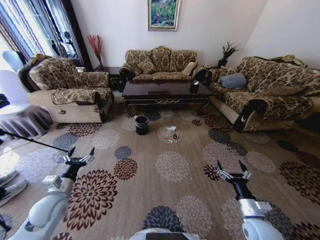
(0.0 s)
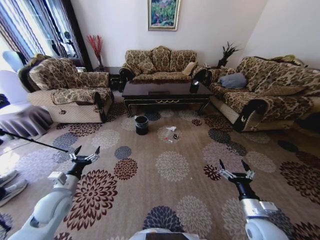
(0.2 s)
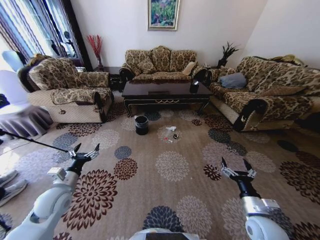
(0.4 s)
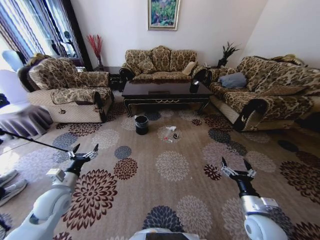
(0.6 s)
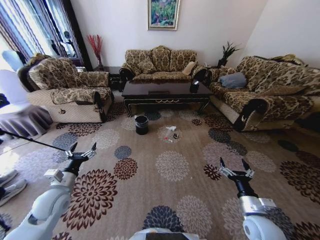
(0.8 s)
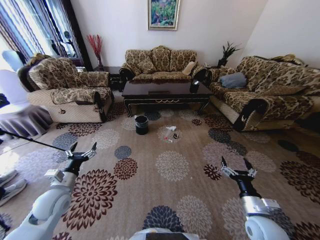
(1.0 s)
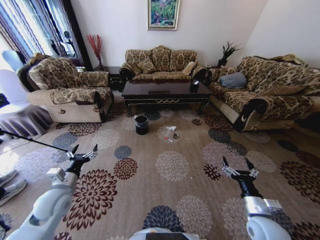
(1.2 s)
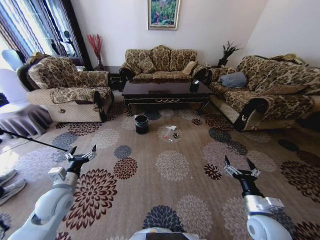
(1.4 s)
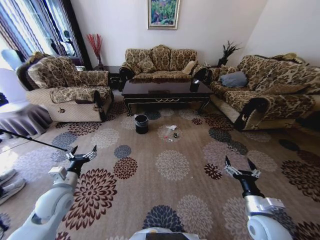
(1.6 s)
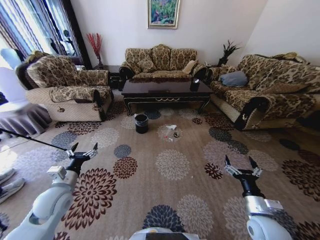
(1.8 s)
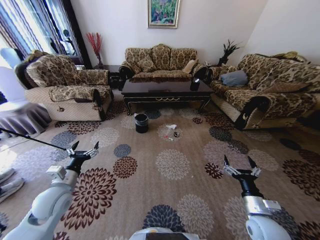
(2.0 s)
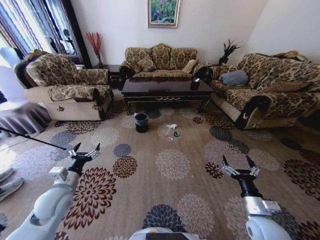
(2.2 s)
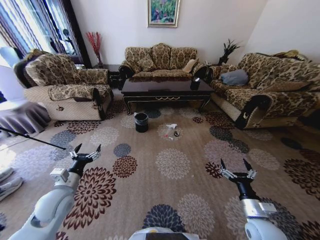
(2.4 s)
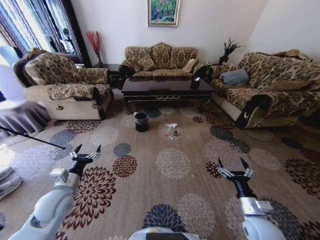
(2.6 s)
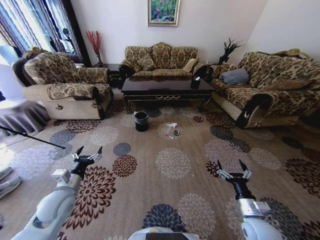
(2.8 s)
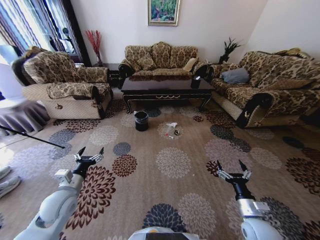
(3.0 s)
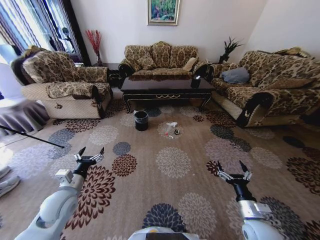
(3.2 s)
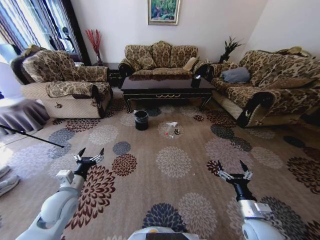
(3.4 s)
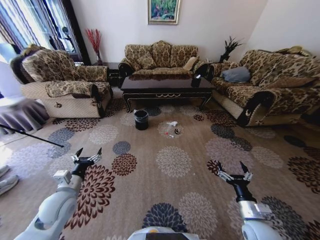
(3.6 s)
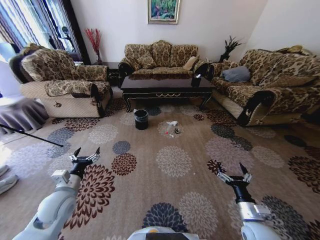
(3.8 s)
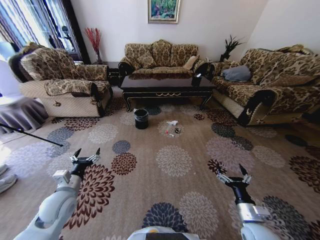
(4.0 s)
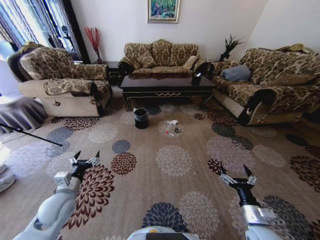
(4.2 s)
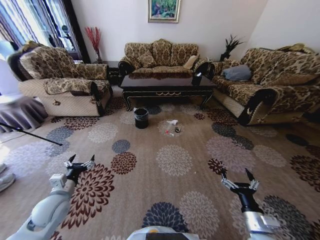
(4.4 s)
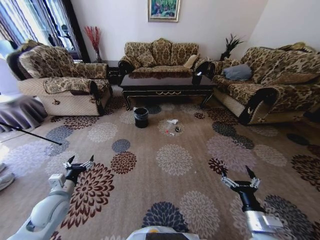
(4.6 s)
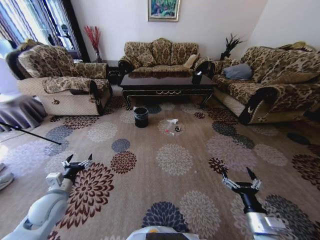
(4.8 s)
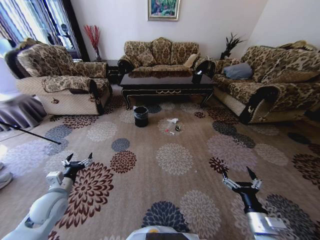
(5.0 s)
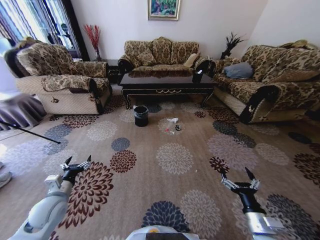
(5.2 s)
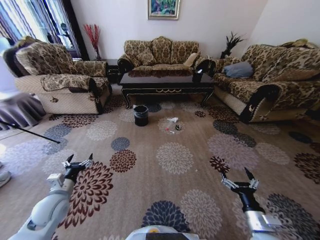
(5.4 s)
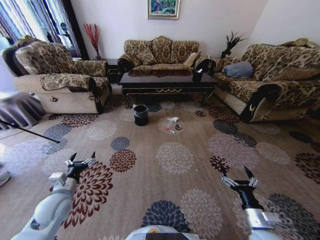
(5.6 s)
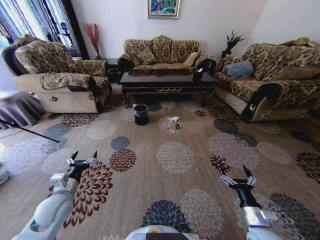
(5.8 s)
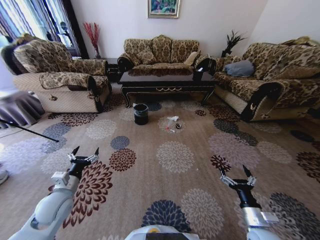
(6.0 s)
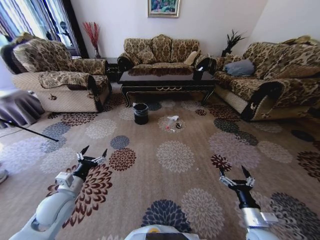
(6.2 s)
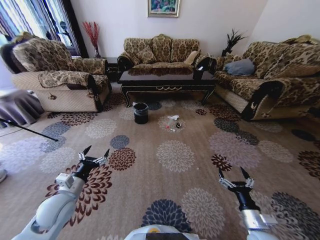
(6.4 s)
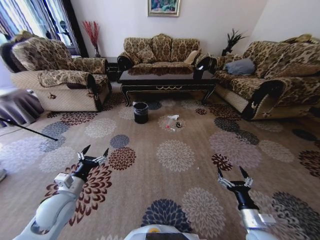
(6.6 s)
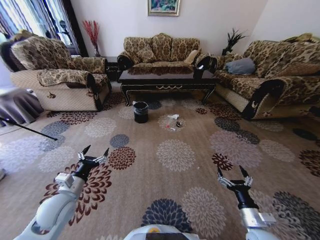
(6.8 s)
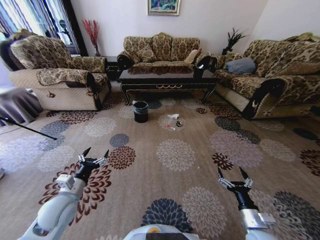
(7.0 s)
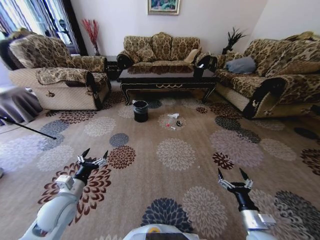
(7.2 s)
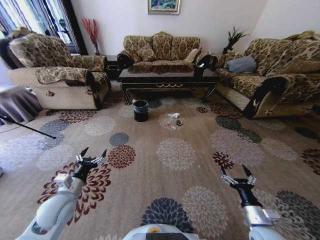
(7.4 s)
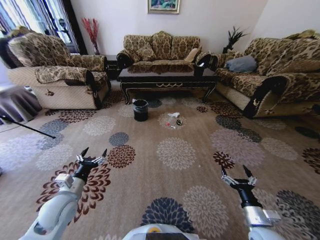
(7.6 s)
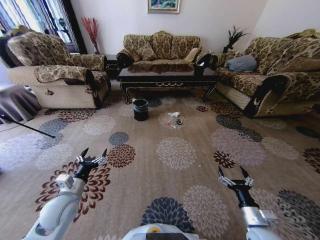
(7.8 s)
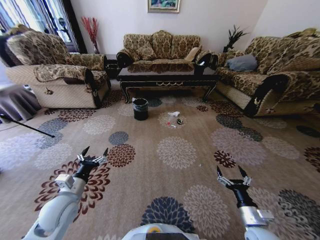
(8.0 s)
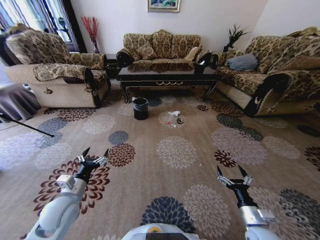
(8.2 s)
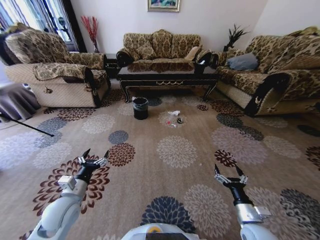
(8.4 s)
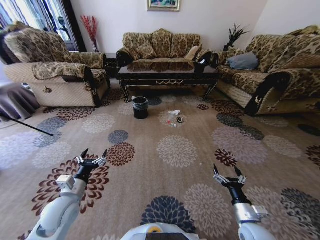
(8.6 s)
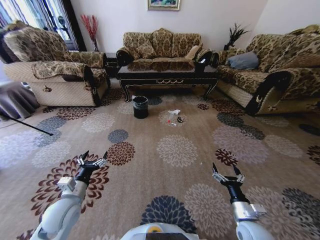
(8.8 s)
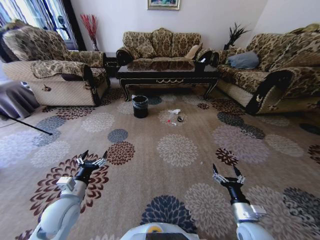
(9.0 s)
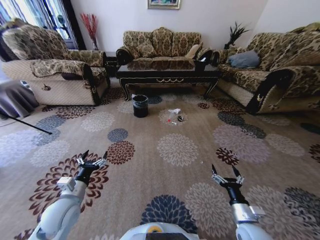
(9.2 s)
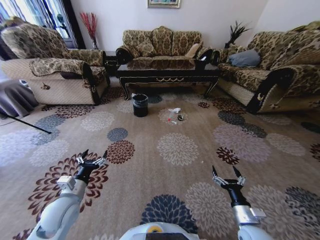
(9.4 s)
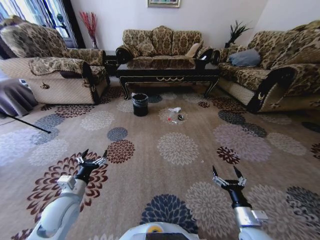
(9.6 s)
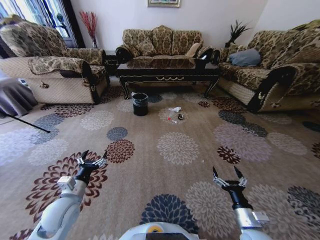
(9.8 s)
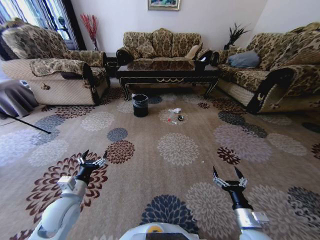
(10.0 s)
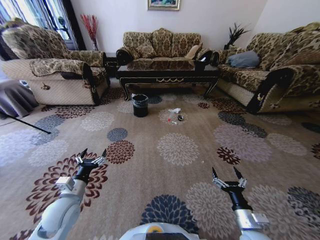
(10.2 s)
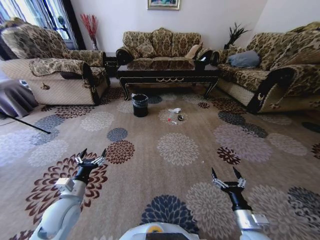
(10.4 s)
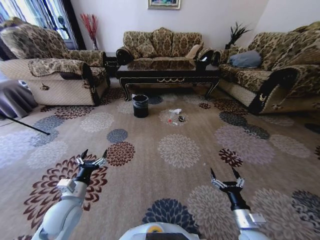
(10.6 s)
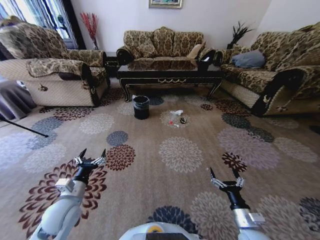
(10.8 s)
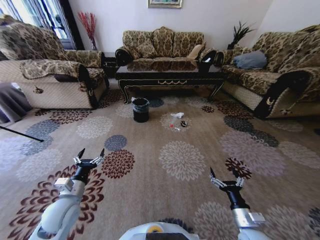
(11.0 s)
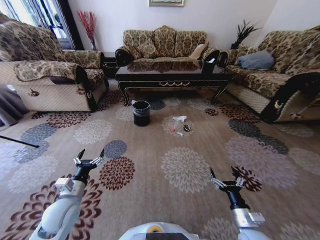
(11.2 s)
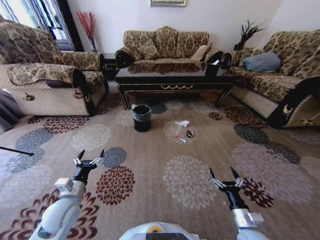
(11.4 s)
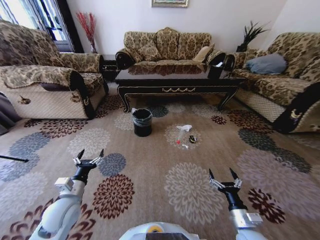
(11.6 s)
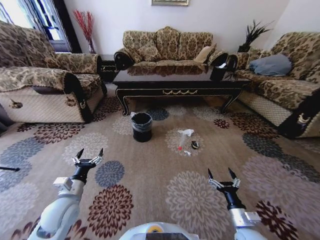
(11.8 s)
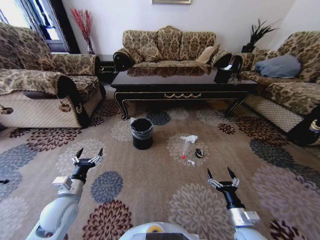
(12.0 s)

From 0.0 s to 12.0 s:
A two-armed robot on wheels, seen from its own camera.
Task of the whole recording: Move to the front of the table and pick up the trash from the floor, then place it into the trash bin.
From 9.0 s to 10.4 s: There are only small adjustments of the grippers.

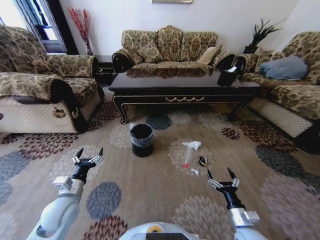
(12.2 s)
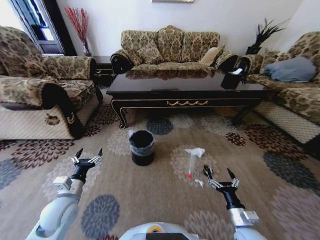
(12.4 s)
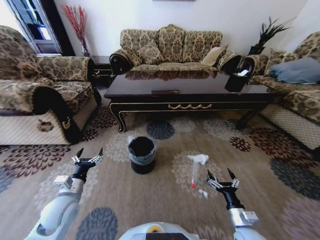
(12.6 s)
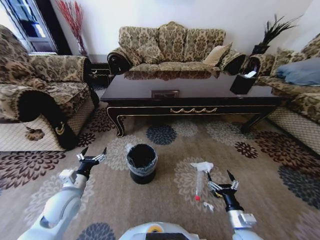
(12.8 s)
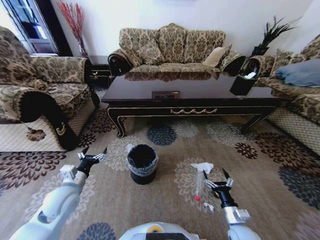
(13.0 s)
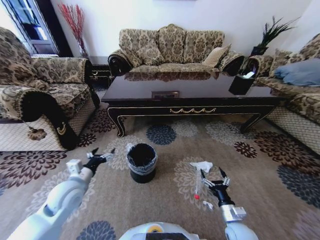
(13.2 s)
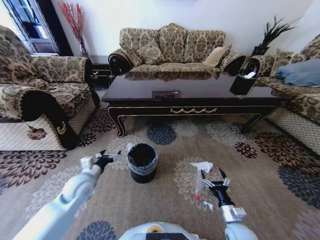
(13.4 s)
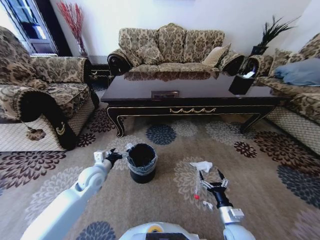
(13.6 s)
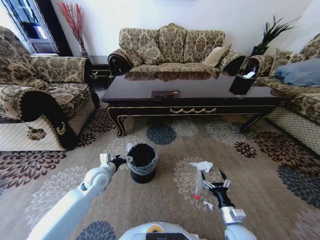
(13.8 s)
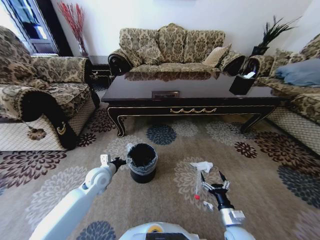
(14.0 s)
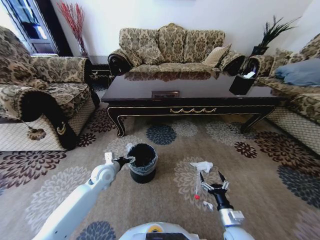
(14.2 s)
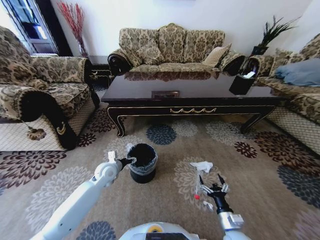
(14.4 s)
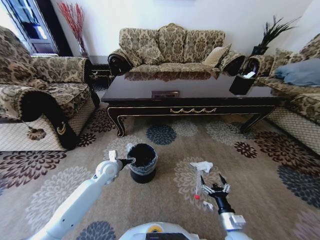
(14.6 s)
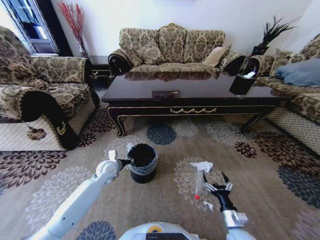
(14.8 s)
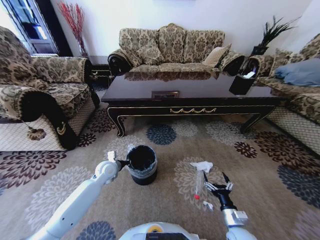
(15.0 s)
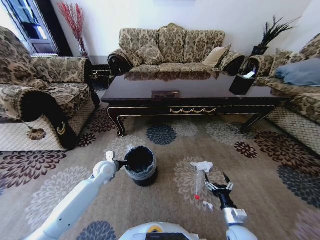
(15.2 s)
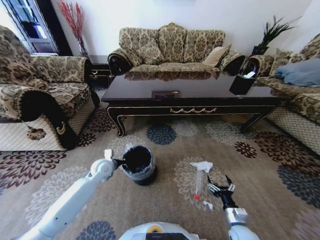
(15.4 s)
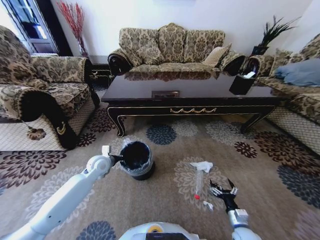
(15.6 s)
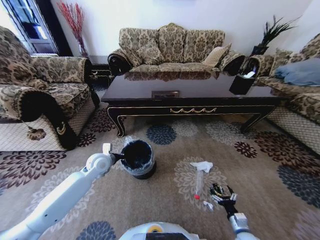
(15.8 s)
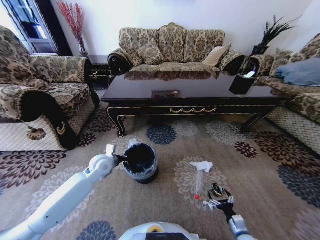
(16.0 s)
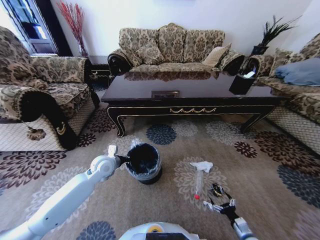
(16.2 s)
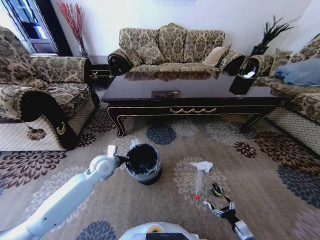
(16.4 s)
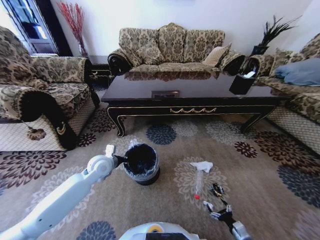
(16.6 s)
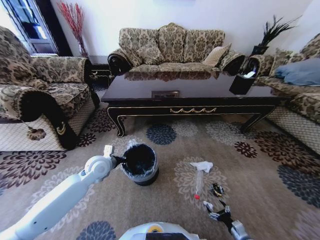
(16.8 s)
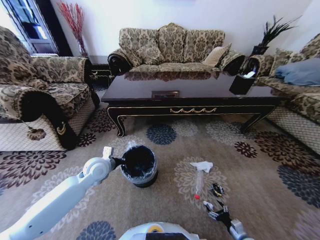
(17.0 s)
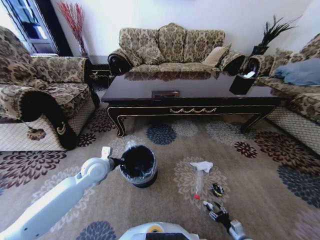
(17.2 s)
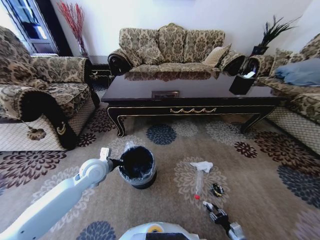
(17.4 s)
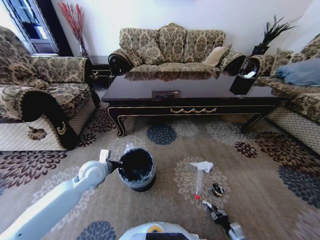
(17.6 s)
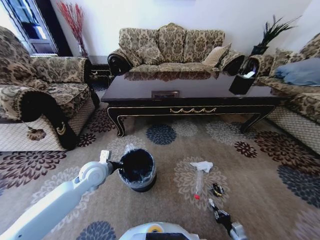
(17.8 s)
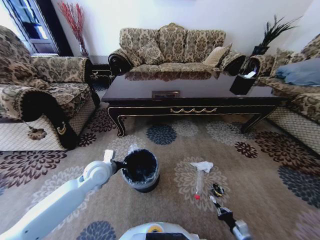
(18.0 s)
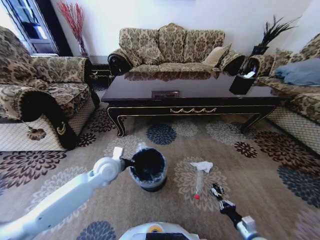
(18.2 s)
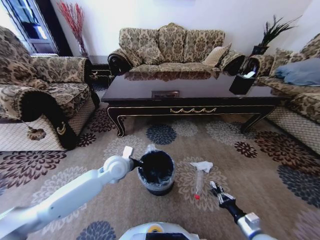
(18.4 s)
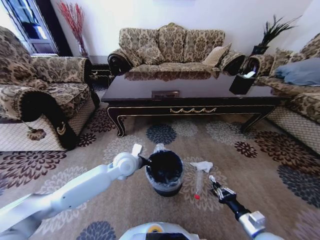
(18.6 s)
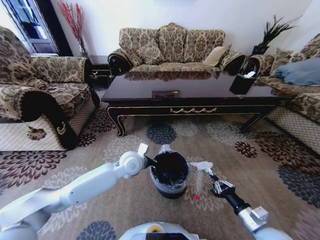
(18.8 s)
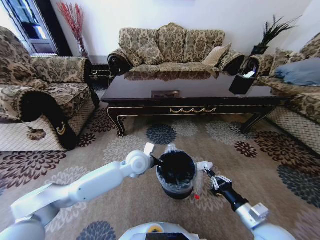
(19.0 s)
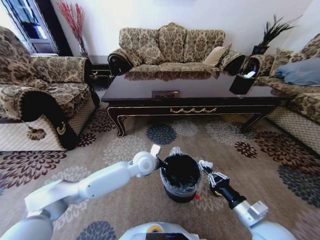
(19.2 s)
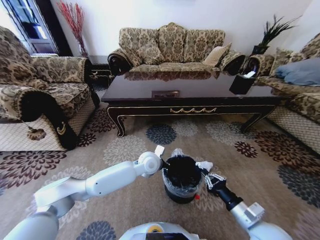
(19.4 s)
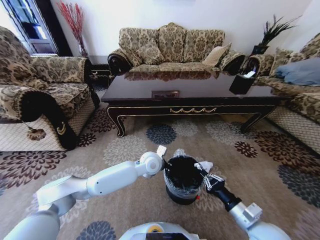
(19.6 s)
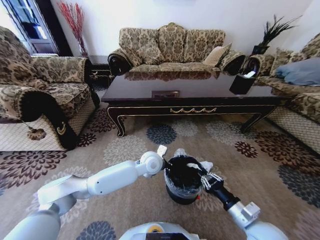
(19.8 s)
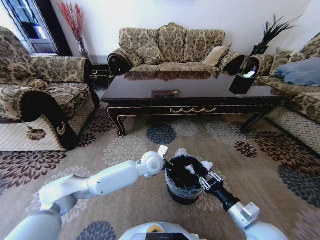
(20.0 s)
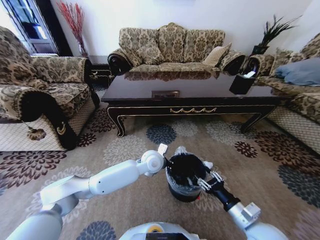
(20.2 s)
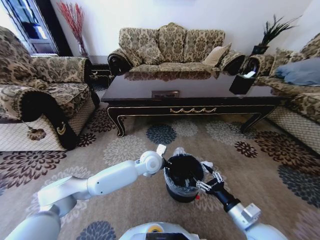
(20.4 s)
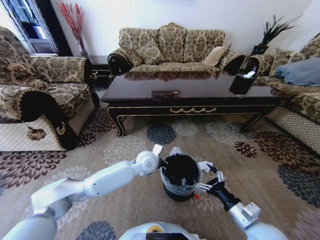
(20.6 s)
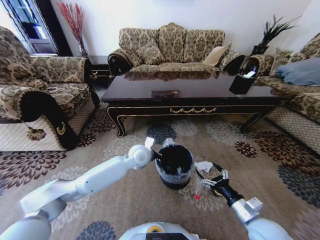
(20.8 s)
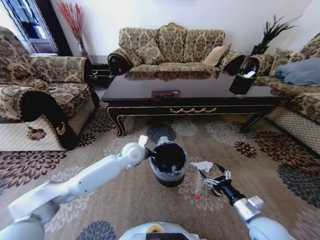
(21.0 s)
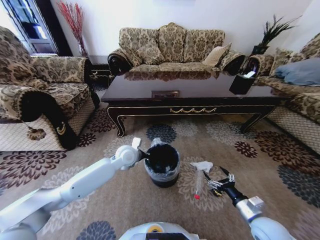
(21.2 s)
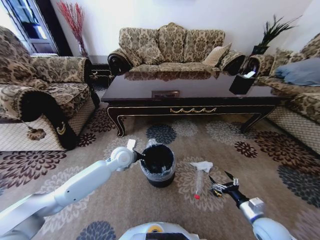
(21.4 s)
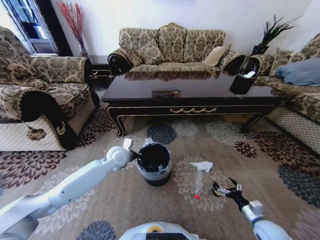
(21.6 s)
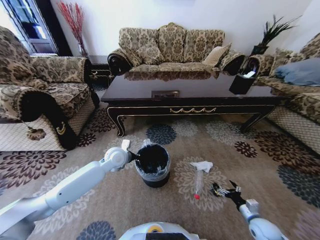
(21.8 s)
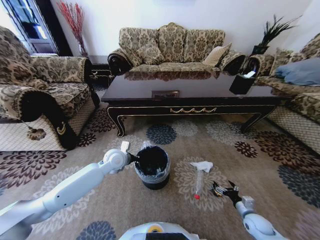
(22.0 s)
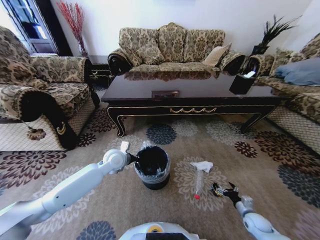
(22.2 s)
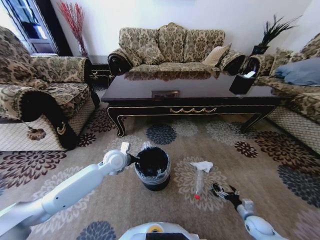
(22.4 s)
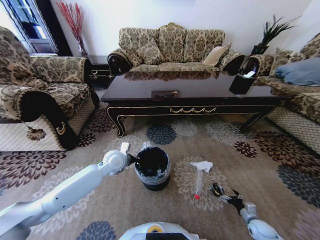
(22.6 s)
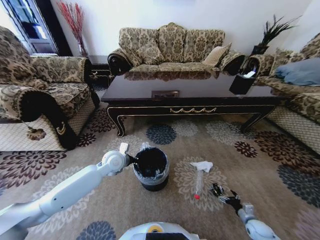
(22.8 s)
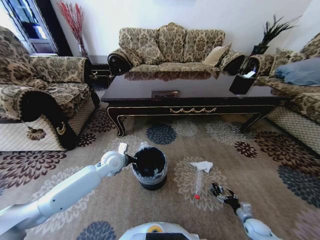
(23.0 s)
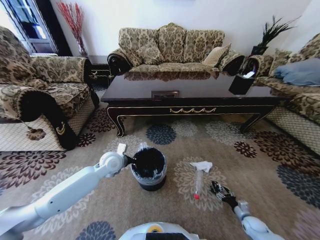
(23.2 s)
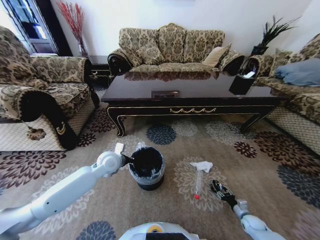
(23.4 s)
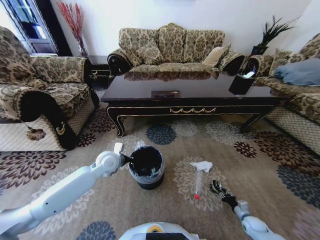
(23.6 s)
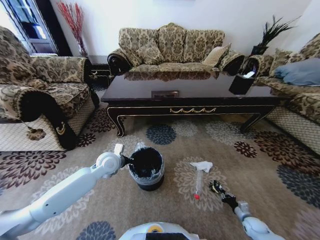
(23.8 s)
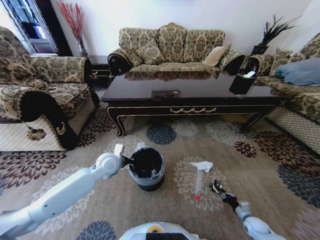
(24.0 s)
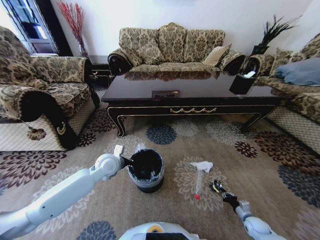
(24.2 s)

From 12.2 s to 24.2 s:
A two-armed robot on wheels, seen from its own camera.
Task of the whole recording: Move to the front of the table and pick up the trash from the floor, then place it into the trash bin.
From 12.2 s to 13.8 s: The left gripper travels forward and to the right by approximately 15 cm.
From 13.8 s to 15.2 s: The left gripper shifts approximately 5 cm forward, and closes.
From 15.2 s to 16.6 s: The left gripper moves upward, approximately 10 cm; the right gripper heads downward and to the right, covering approximately 15 cm.
From 16.6 s to 18.2 s: The right gripper shifts some 5 cm upward, and closes up.
From 18.2 s to 19.8 s: The right gripper heads upward and to the left, covering approximately 20 cm, while the left gripper heads to the right, covering approximately 20 cm.
From 19.8 s to 21.2 s: The right gripper is displaced to the right and downward by roughly 10 cm, and opens up. Meanwhile the left gripper shifts roughly 10 cm to the left.
From 21.2 s to 22.6 s: The left gripper heads to the left, covering about 5 cm; the right gripper is displaced downward and to the right by roughly 25 cm.
From 22.6 s to 24.2 s: The right gripper closes up.
